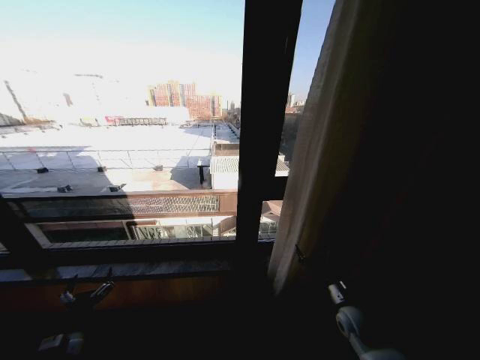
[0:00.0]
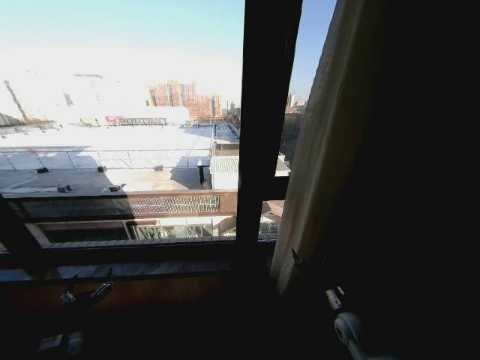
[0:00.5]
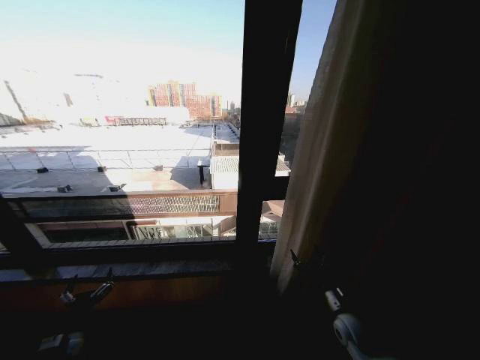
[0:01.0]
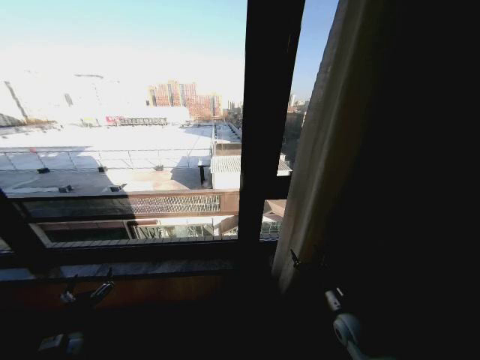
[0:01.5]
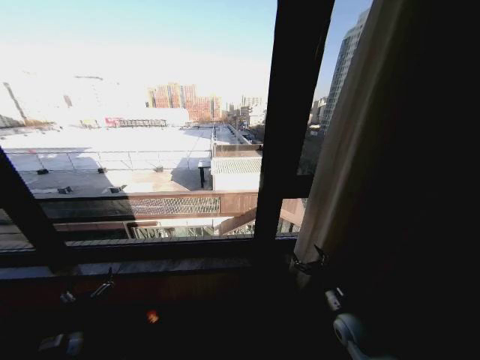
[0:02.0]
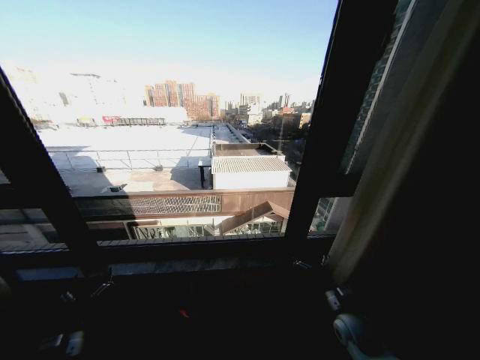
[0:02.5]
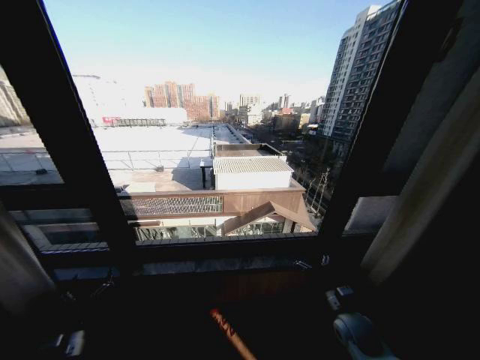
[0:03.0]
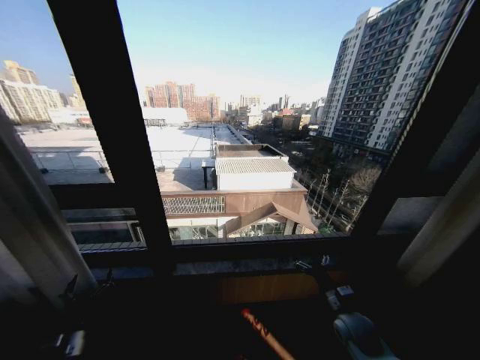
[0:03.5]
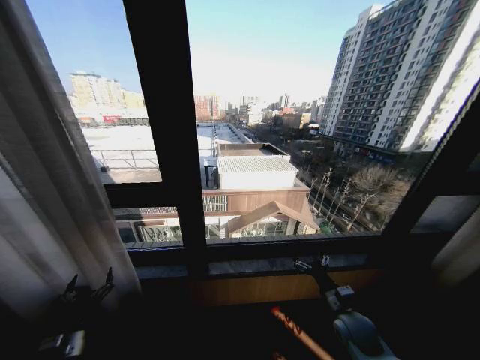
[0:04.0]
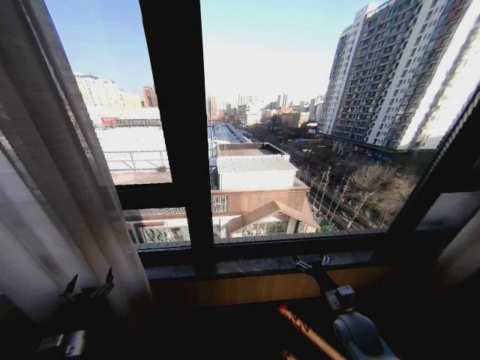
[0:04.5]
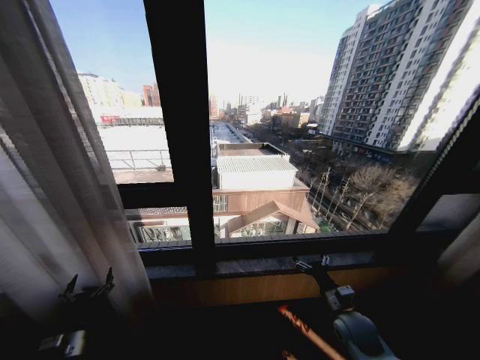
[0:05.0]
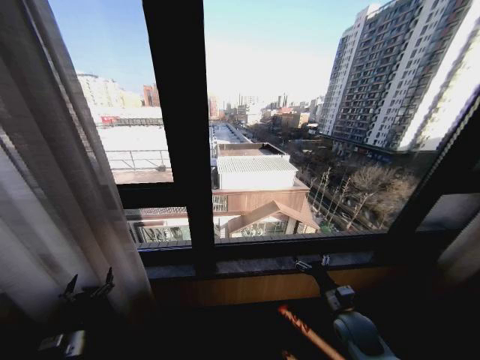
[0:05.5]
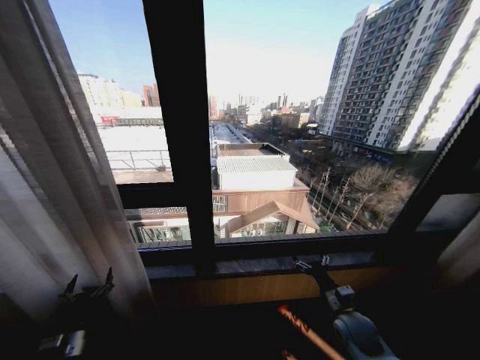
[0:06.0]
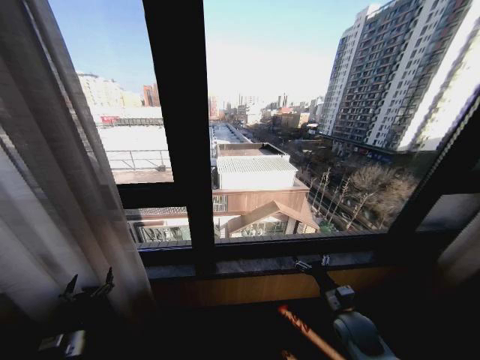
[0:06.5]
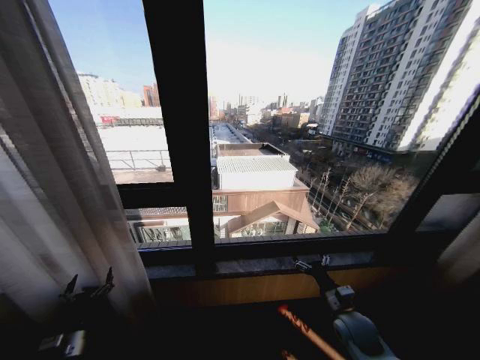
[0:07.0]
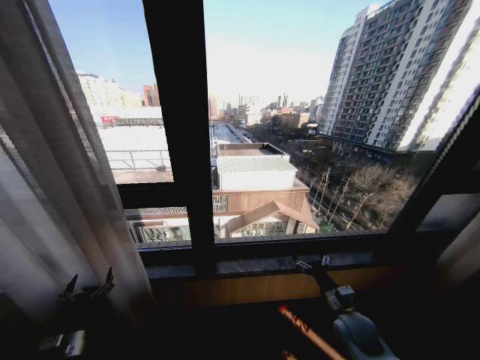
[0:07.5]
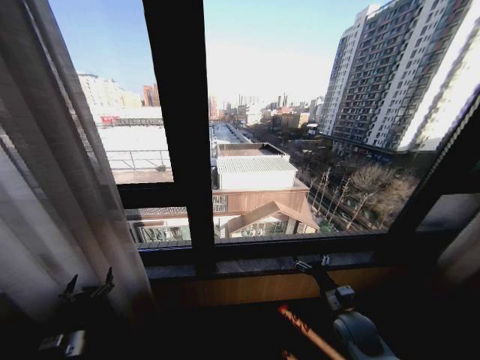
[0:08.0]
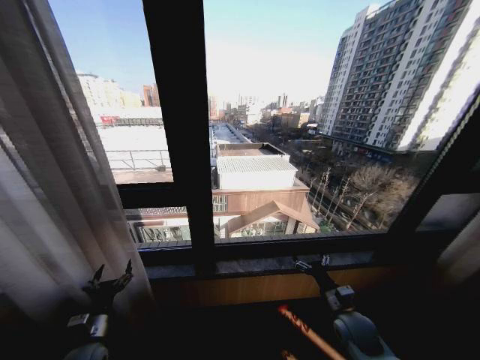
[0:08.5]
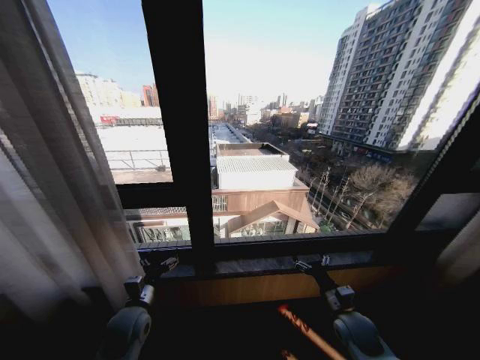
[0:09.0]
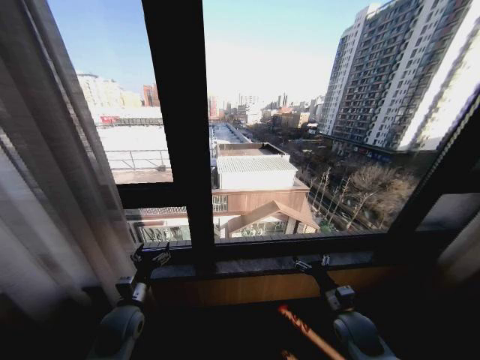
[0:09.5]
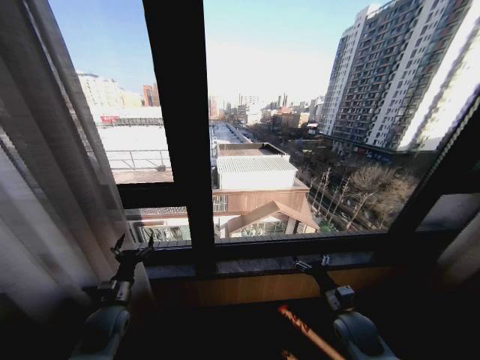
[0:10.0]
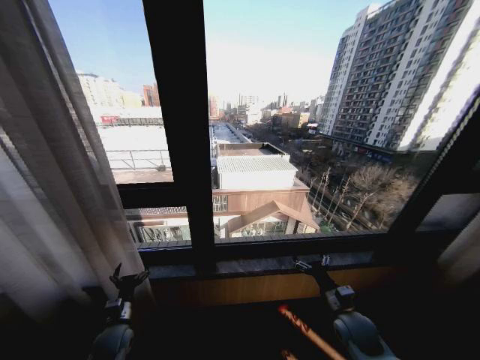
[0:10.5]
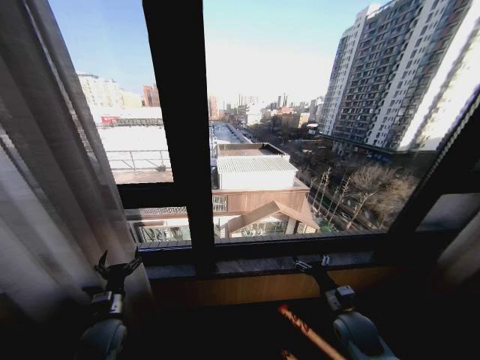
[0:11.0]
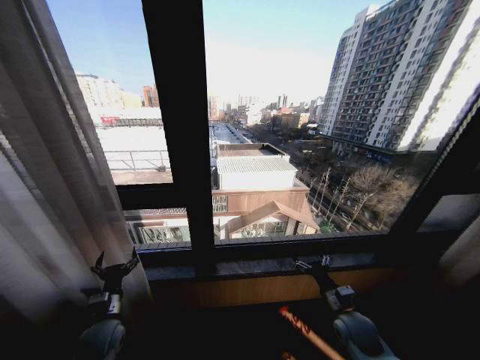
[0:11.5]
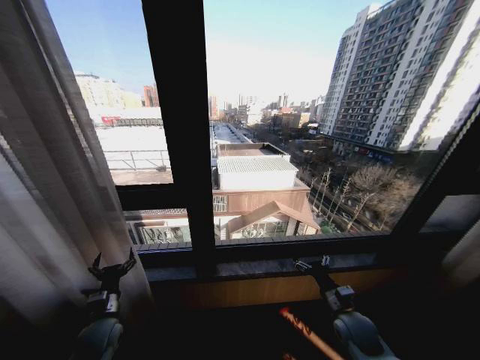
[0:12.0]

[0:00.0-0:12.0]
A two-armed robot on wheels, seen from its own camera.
Task of the whole recording: Open the curtains by pulling them apart, changing their state from closed to fully open.
0:00.0 to 0:02.0: The grippers stay close to where they were, moving slightly.
0:04.0 to 0:08.0: Both grippers stay put.
0:08.0 to 0:10.0: The left gripper moves forward, to the right and upward, roughly 15 cm.
0:10.0 to 0:12.0: The left gripper goes downward and returns, approximately 10 cm each way.

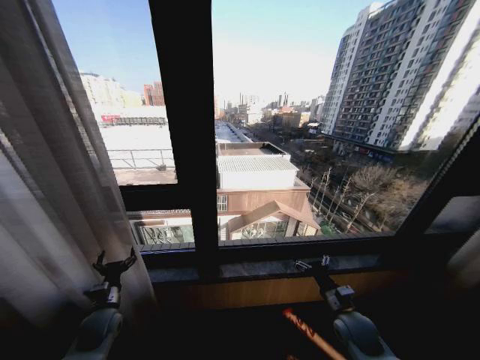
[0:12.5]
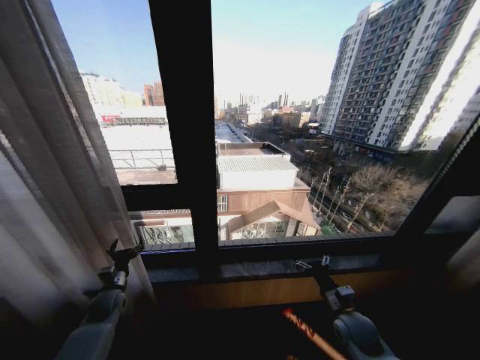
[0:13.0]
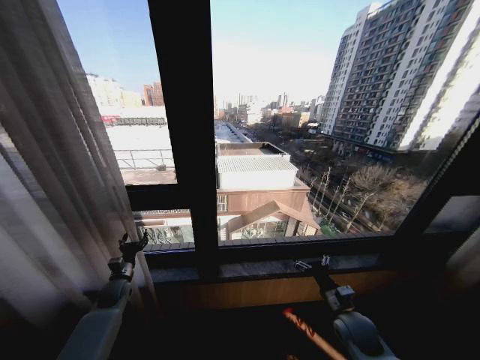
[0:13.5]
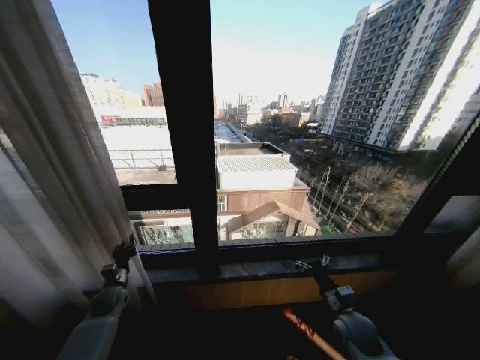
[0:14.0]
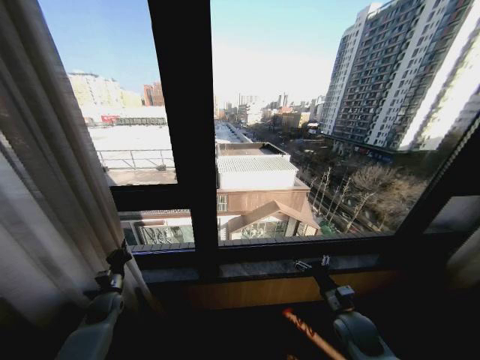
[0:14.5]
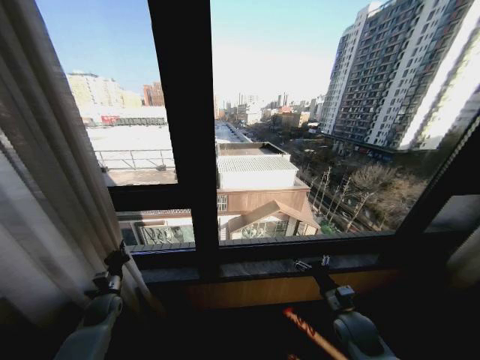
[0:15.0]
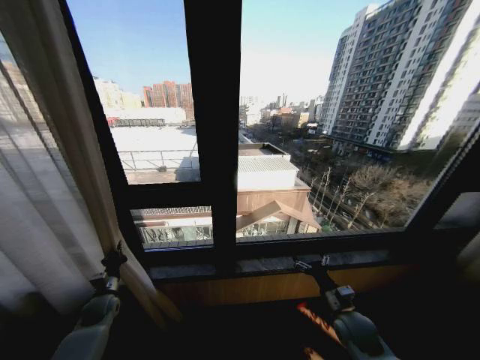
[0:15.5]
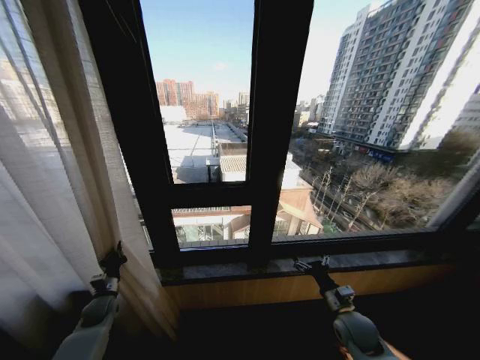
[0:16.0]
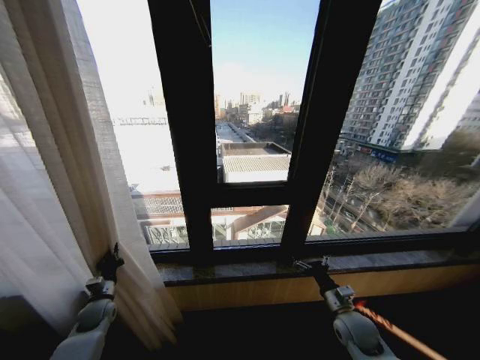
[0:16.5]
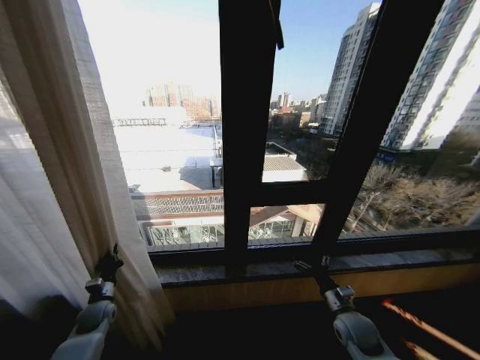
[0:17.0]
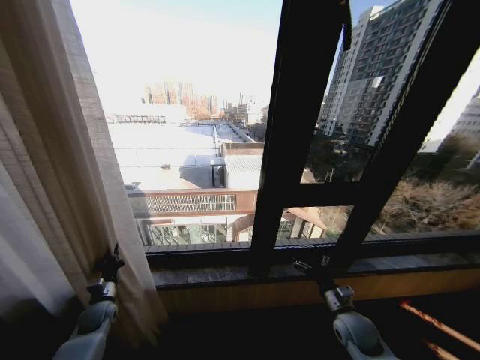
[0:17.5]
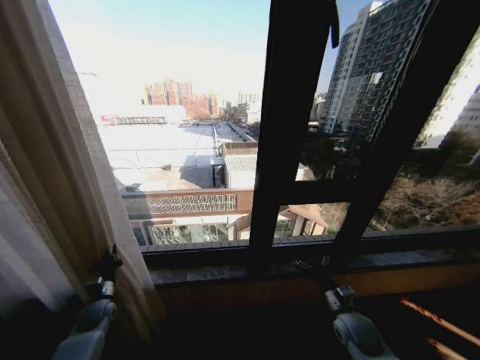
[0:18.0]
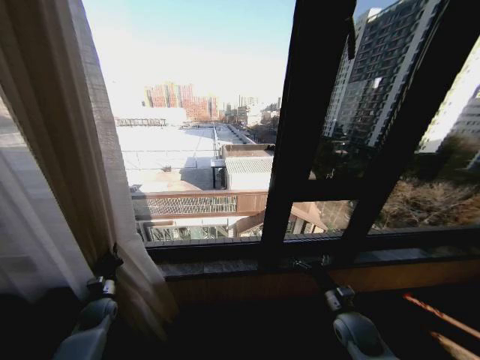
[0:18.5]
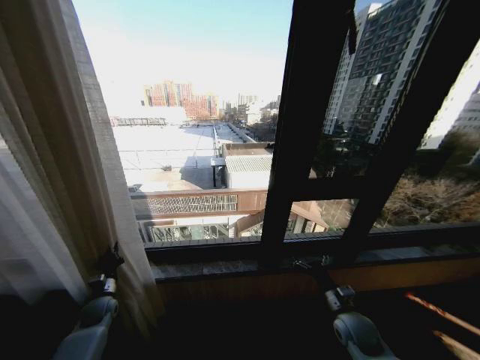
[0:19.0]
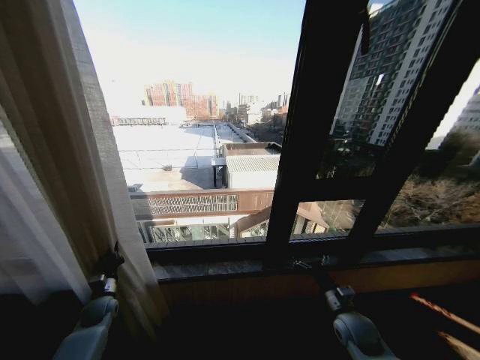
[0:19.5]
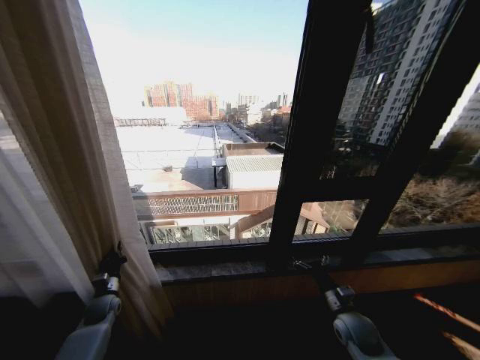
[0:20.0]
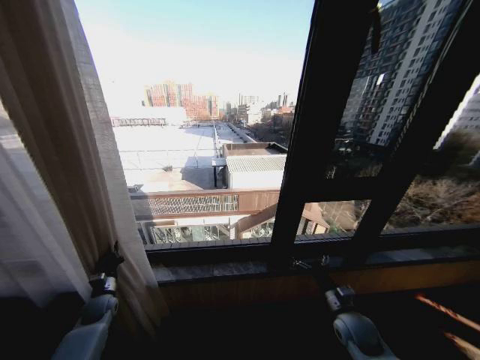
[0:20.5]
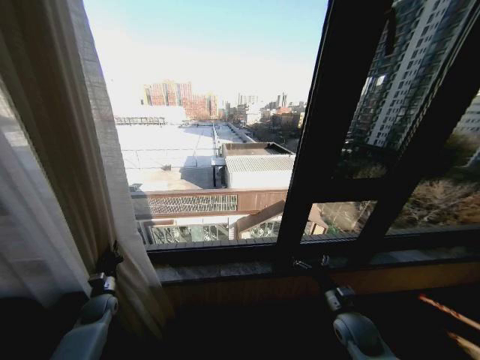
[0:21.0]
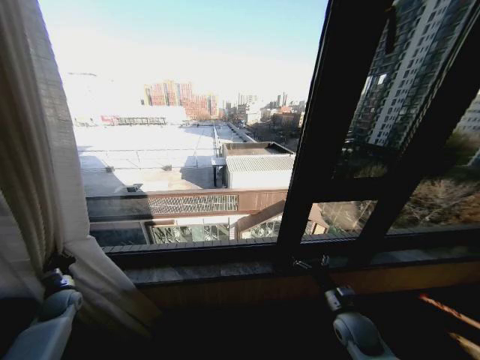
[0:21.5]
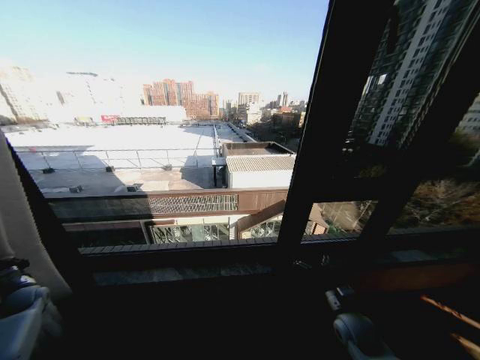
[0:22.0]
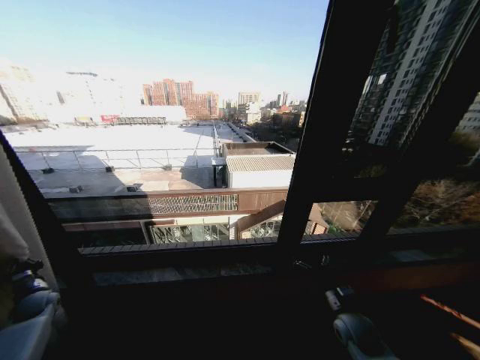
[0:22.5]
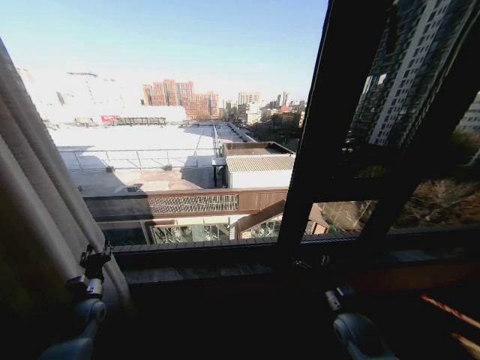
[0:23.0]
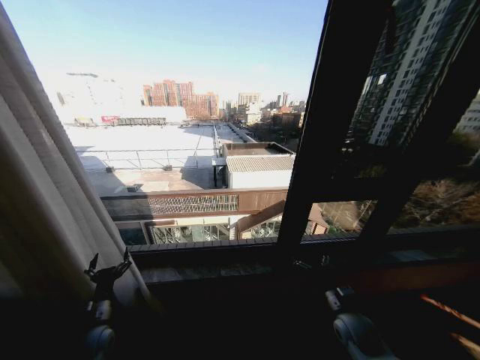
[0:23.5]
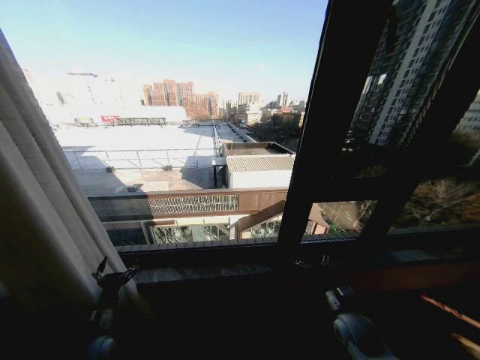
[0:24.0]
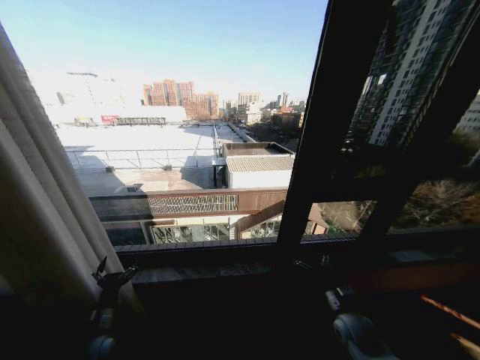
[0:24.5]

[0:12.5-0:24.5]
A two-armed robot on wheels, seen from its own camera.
Task of the whole recording: Open the curtains by pulling them apart, changing their state from closed to fully open.
0:12.5 to 0:14.5: The left gripper moves forward, approximately 5 cm, and closes its fingers.
0:18.5 to 0:20.5: The grippers stay close to where they were, moving slightly.
0:20.5 to 0:22.5: The left gripper shifts approximately 15 cm to the left.
0:22.5 to 0:24.5: The left gripper is displaced to the right and backward by roughly 25 cm, and opens its fingers.

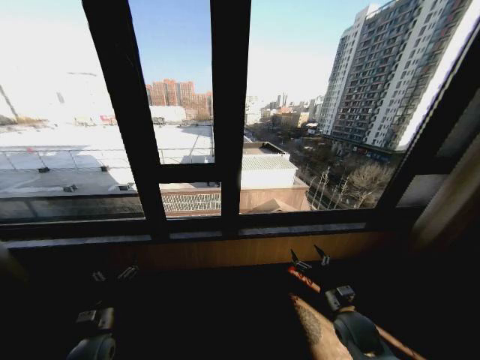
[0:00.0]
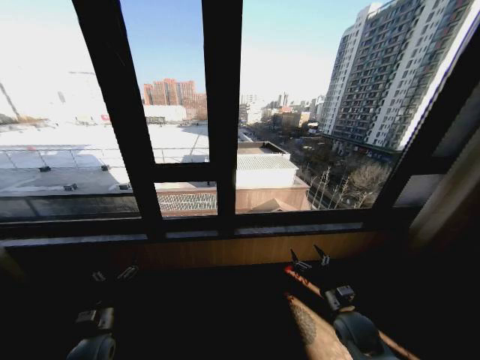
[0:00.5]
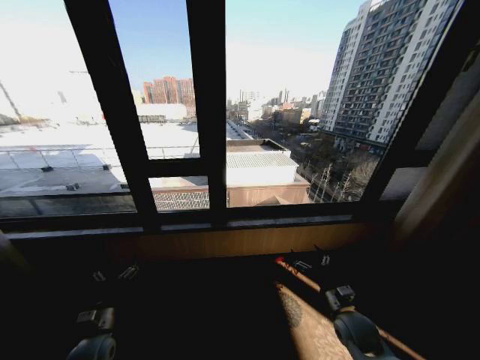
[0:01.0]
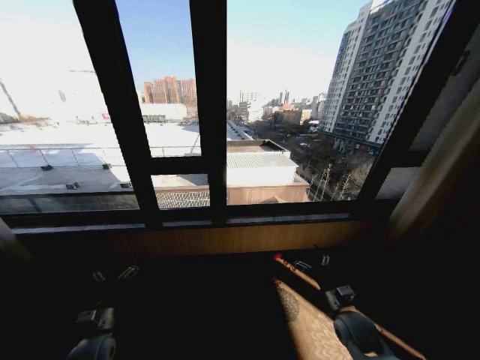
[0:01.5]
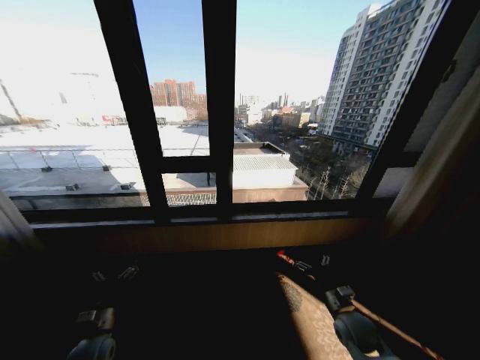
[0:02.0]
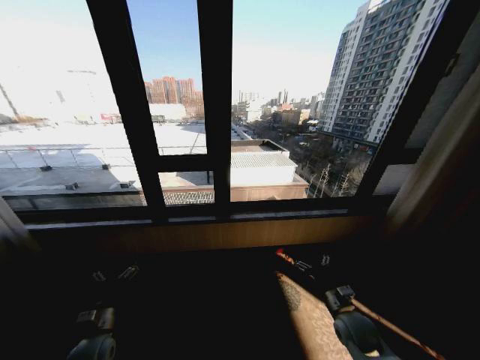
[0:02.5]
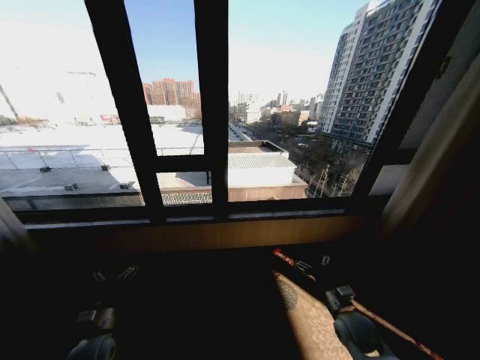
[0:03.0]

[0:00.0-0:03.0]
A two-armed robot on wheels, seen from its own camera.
Task of the whole recording: Open the curtains by pulling them apart, changing their state from closed to fully open.
0:01.5 to 0:03.0: The two grippers keep their place.
